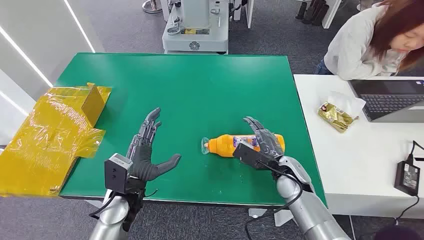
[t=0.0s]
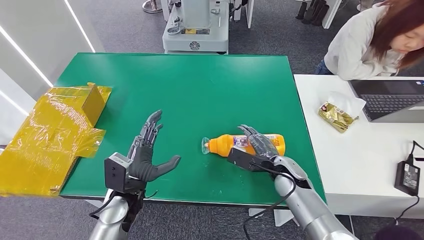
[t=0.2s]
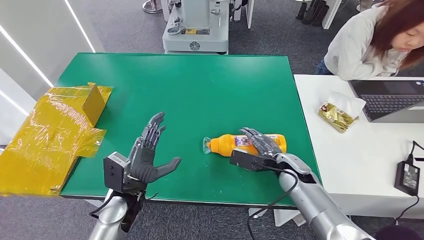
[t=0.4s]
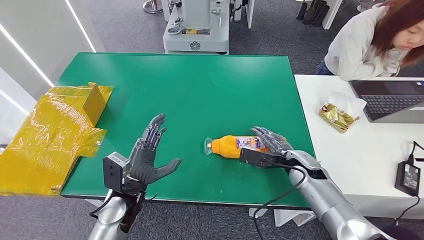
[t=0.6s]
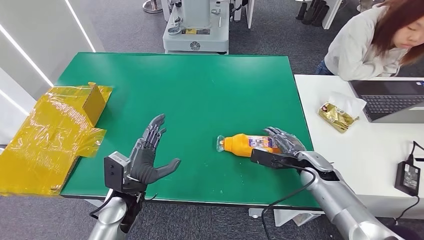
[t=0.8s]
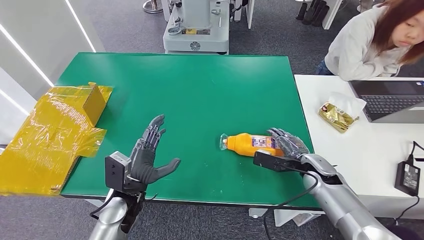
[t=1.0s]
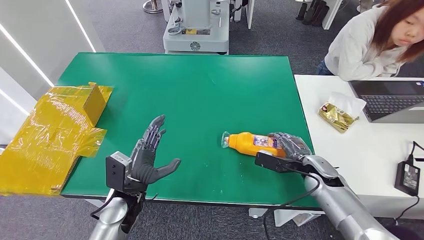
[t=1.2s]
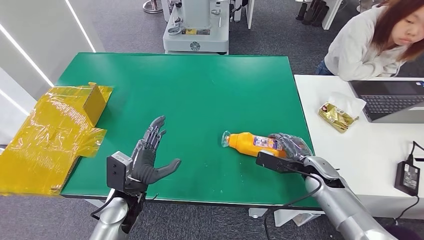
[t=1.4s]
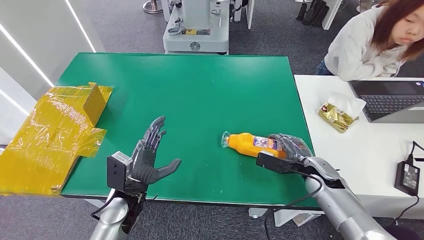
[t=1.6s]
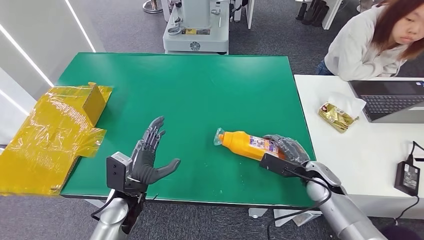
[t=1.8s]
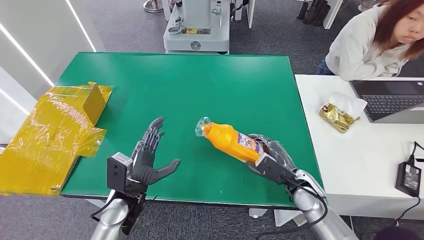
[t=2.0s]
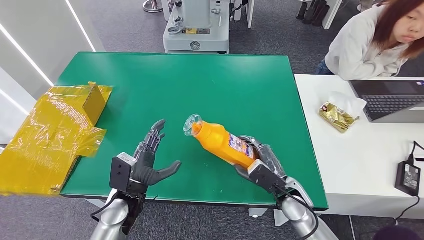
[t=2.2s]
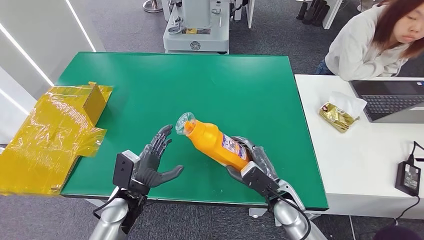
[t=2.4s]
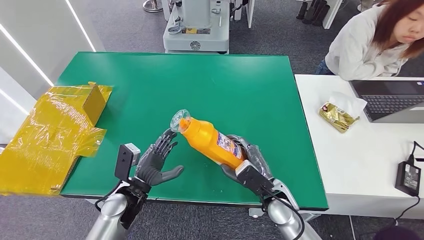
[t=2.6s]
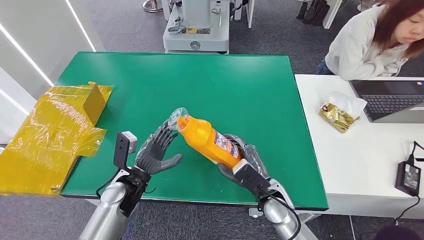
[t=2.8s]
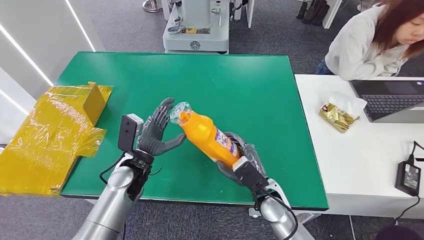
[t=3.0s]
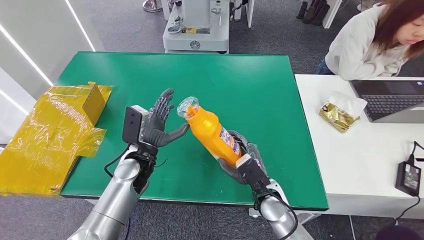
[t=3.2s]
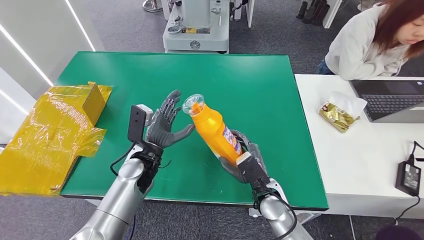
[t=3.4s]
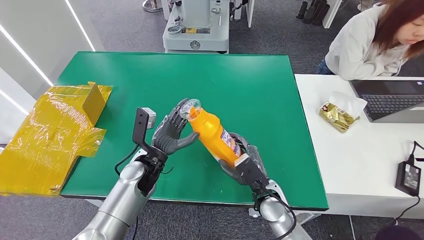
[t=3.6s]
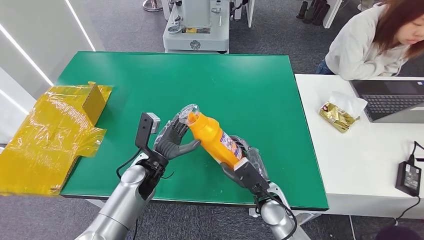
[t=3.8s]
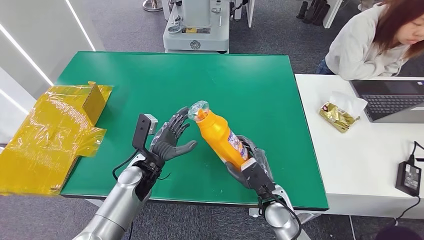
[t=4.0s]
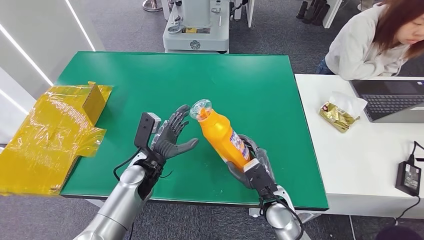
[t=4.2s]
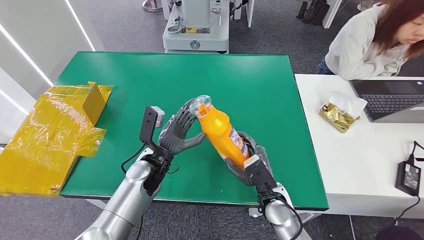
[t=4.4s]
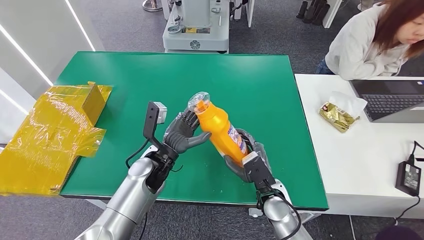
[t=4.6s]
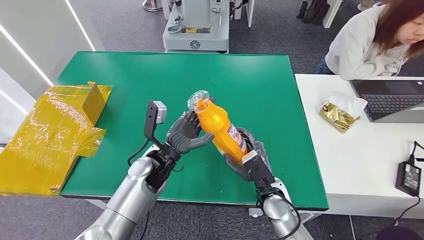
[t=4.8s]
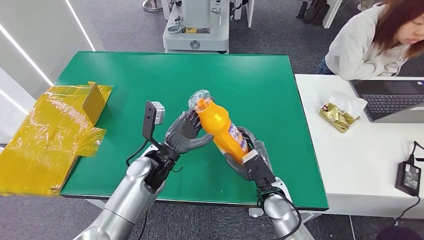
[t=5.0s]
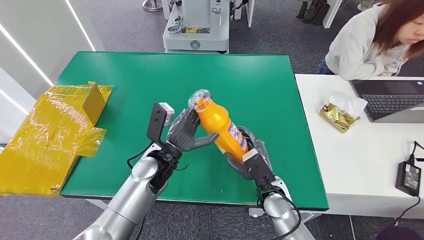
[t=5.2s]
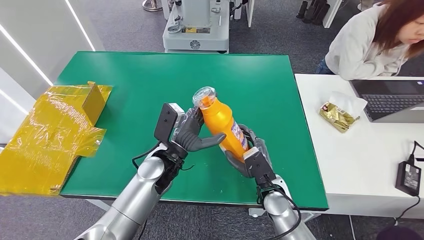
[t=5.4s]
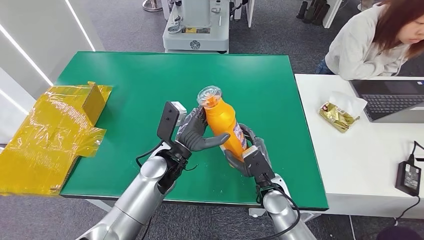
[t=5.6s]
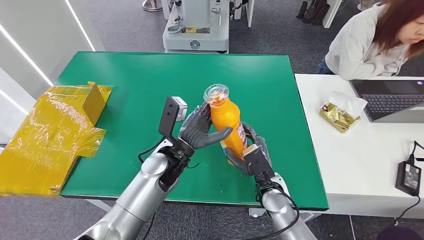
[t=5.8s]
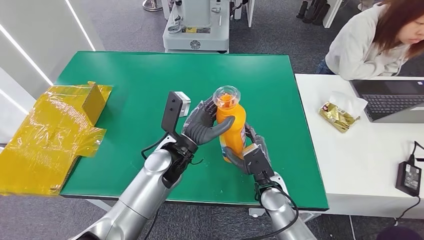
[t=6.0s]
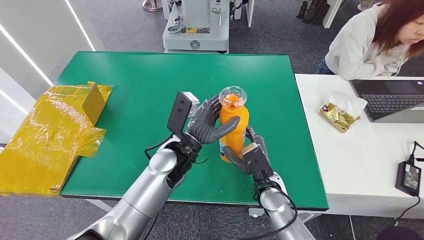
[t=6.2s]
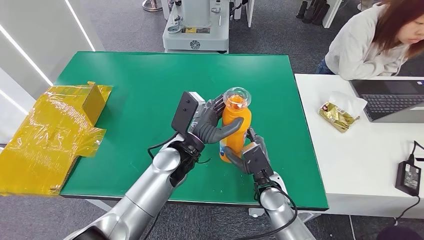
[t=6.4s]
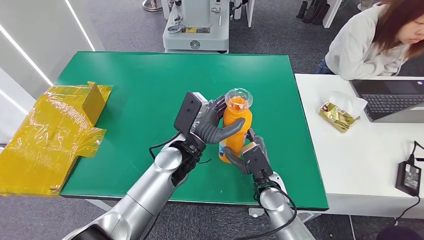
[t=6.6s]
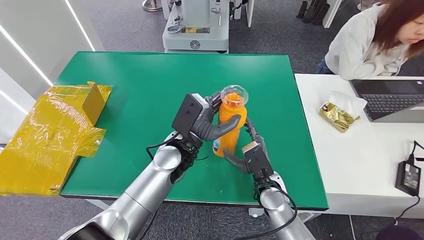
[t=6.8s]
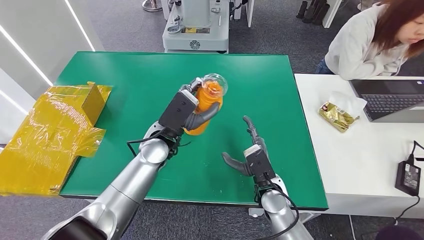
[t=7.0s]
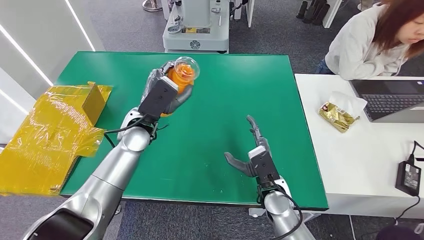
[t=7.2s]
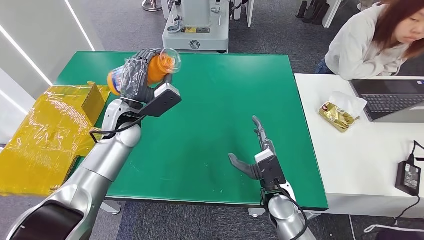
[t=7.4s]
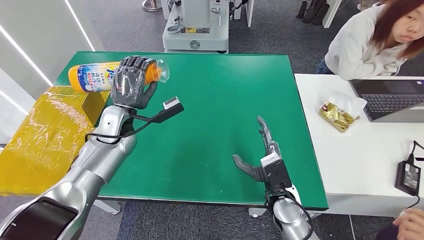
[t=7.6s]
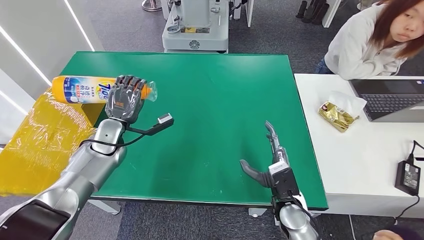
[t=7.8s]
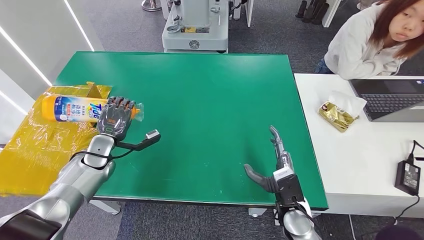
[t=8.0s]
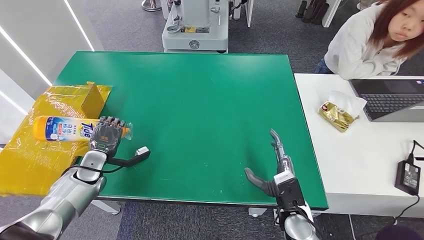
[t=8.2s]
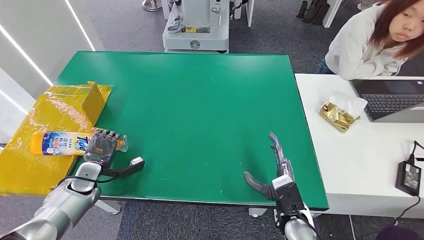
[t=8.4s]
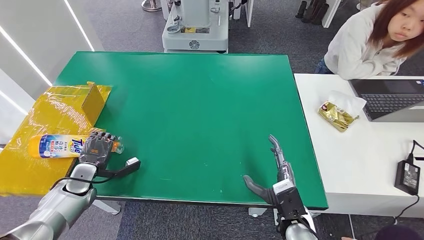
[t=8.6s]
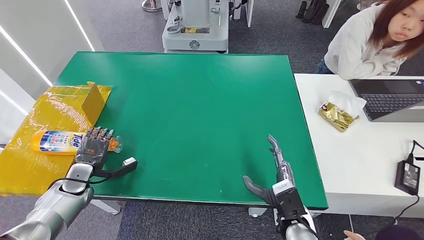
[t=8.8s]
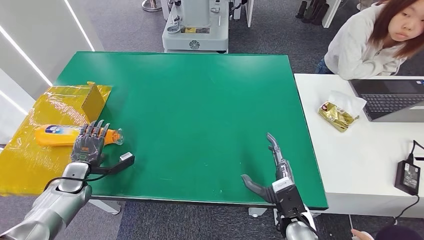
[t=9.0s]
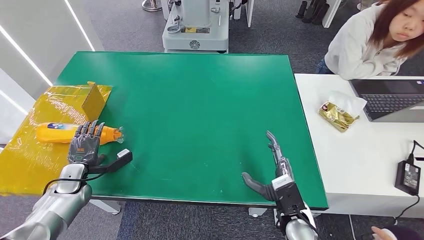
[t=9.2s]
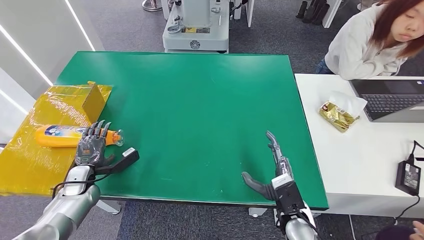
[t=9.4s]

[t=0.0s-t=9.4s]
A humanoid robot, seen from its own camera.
Step, t=0.0s to t=3.4s: Pick up the bottle from the table.
Step, t=5.0s to t=9.4s: Turn the bottle to the front side.
t=1.6s to t=3.2s: The left hand heads forward, covering about 10 cm; the right hand moves to the left and backward, approximately 20 cm.
t=3.2s to t=4.8s: The left hand shifts some 5 cm to the right.
t=4.8s to t=6.2s: The left hand heads to the right, covering some 5 cm.
t=7.8s to t=9.4s: The left hand moves downward, to the left and backward, about 20 cm.
